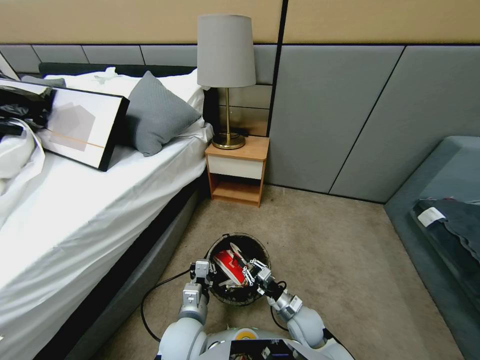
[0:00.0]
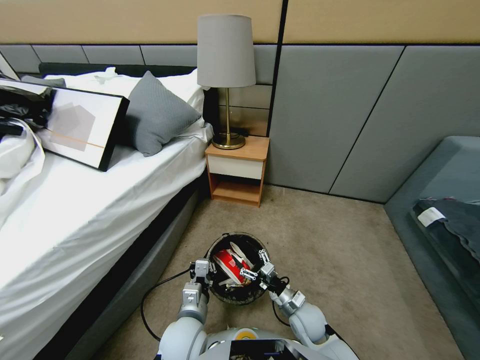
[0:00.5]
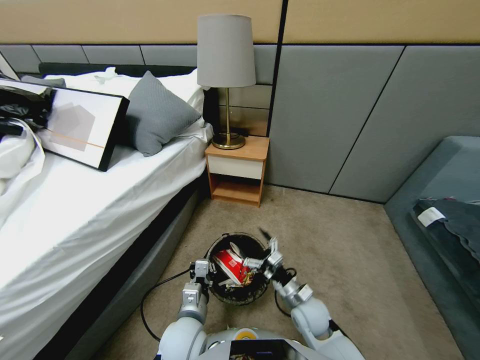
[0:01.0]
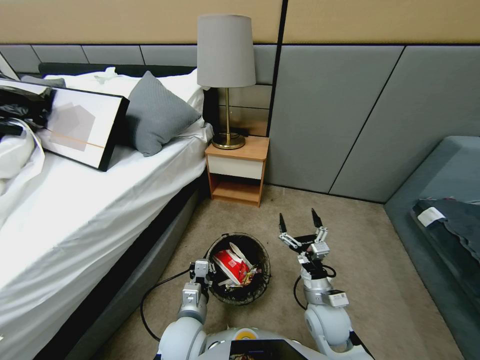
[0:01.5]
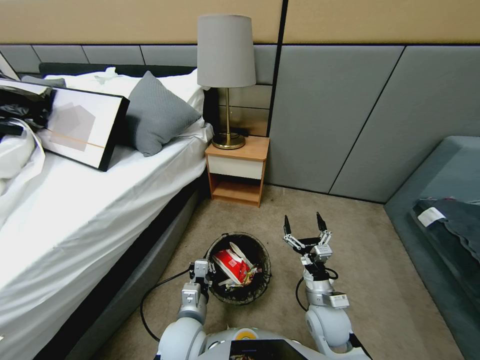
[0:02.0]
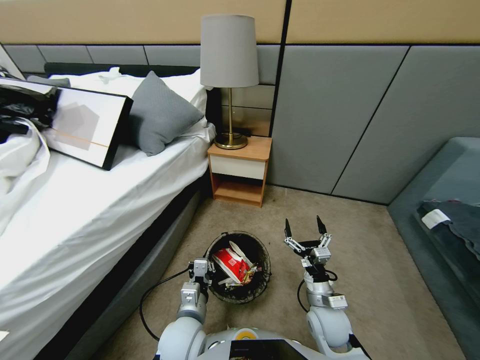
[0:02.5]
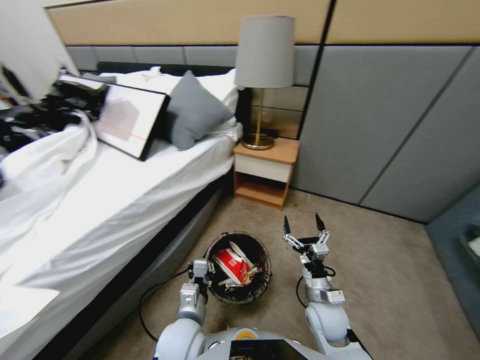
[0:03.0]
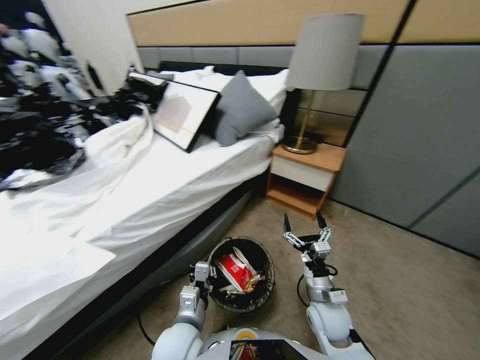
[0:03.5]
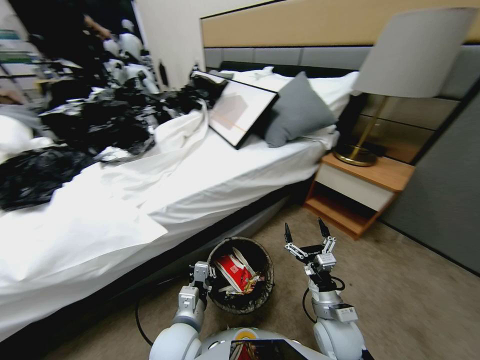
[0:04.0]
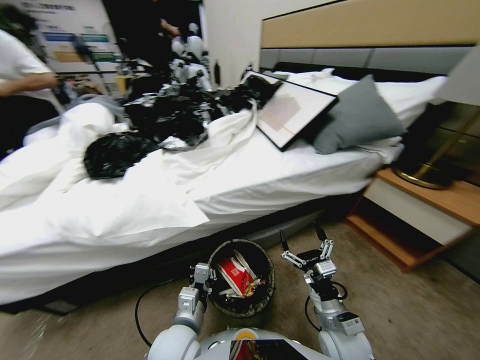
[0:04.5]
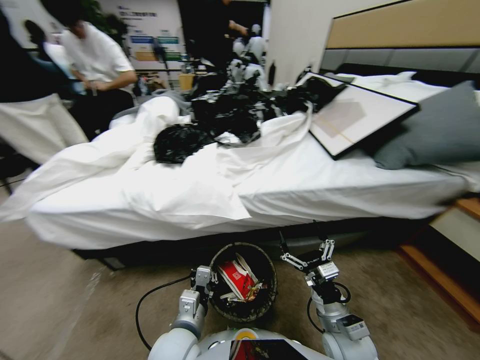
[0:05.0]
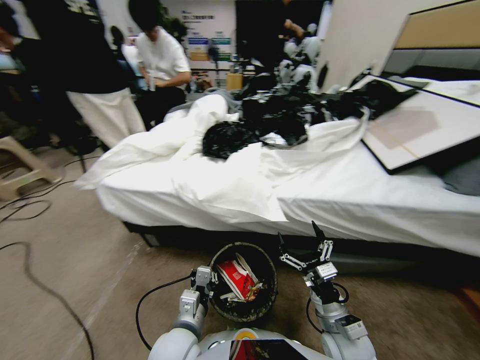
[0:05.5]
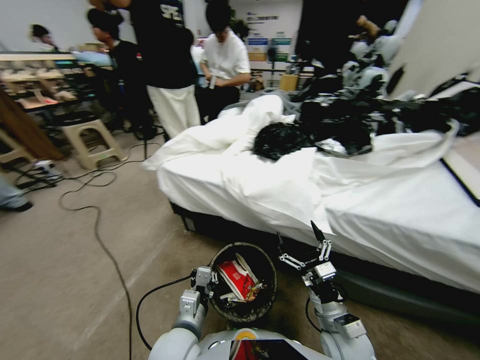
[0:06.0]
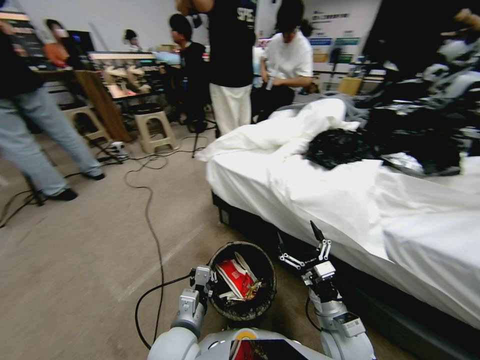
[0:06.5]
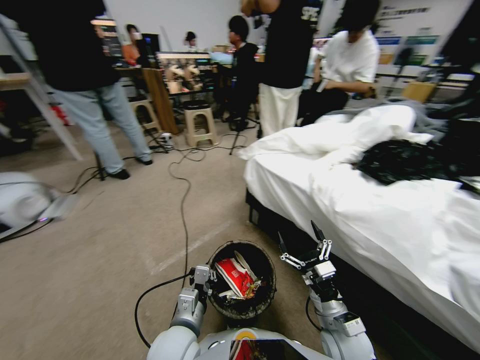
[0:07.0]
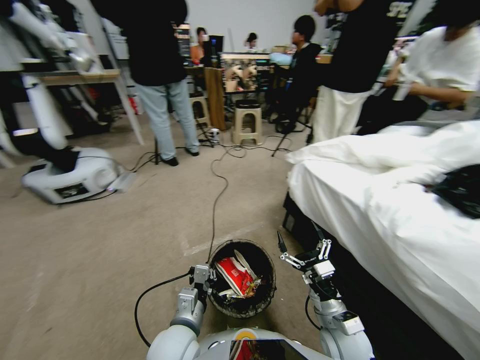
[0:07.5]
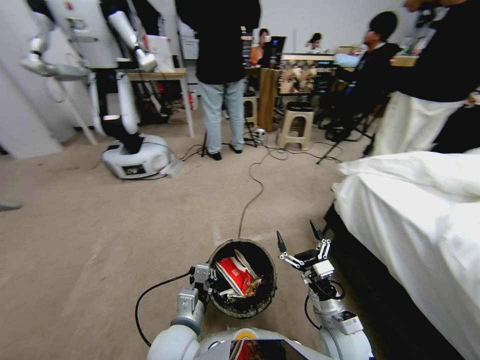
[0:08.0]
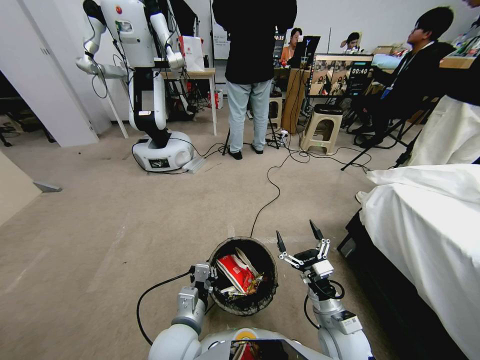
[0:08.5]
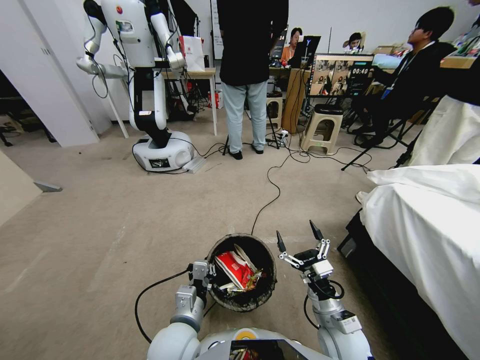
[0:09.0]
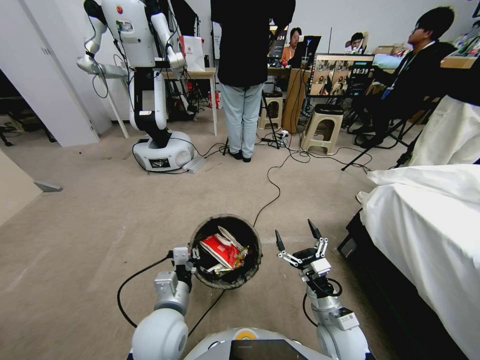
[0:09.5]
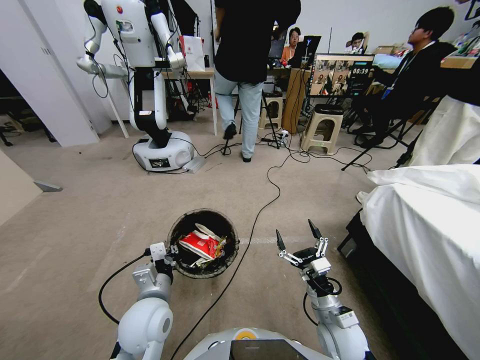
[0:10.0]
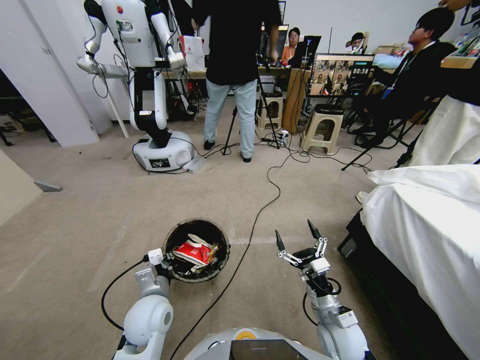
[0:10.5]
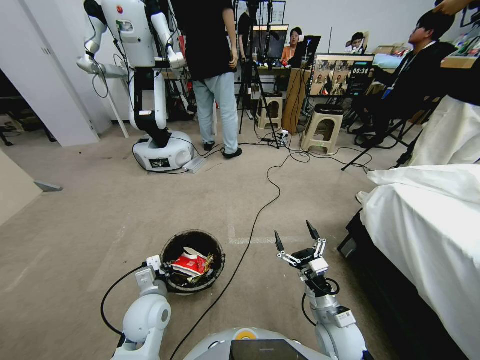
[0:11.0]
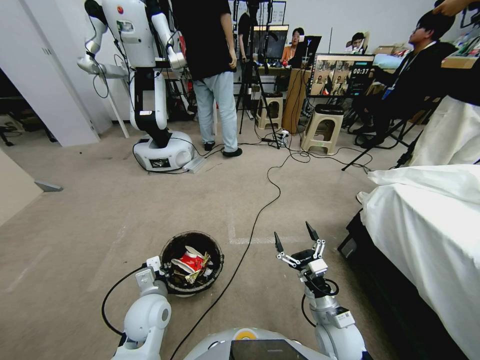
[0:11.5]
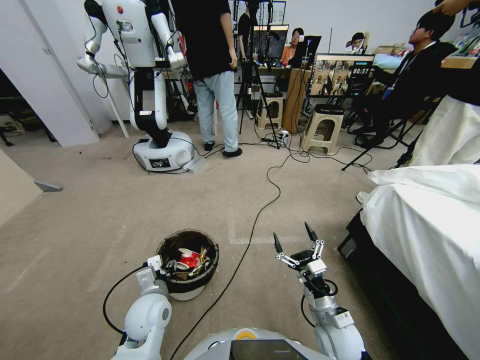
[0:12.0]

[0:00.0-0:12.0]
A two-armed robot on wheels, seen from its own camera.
Task of the whole recording: Pick up the trash bin, then pick up the garbage from the floor and place it into the trash bin.
0:00.0 to 0:02.0: The right gripper heads upward, covering approximately 10 cm, and opens its fingers.
0:08.0 to 0:10.0: The left gripper moves to the left and forward, approximately 10 cm.
0:10.0 to 0:12.0: The left gripper opens.

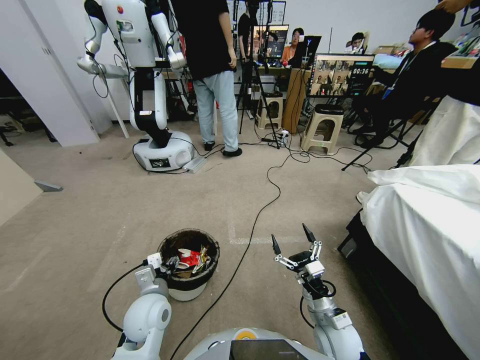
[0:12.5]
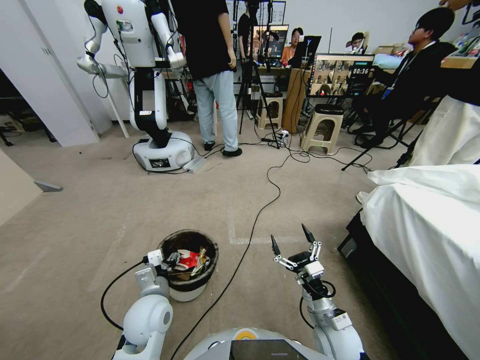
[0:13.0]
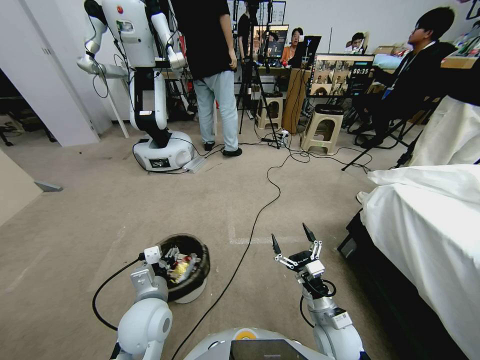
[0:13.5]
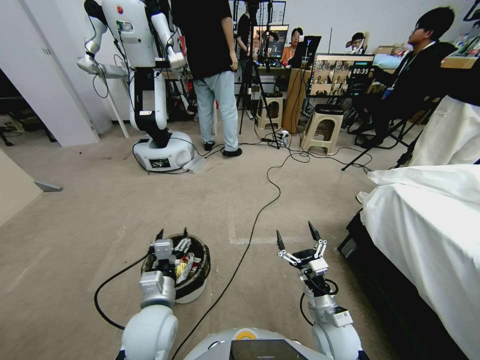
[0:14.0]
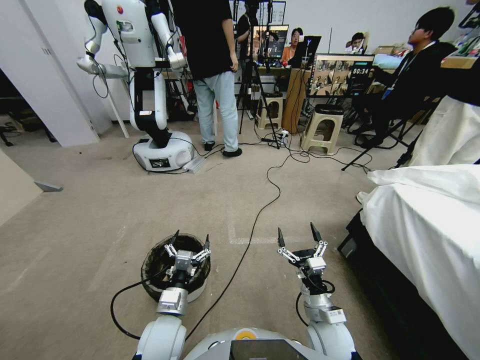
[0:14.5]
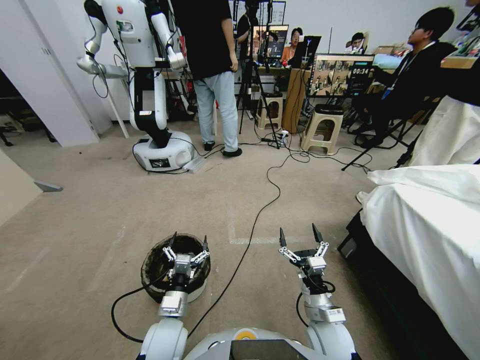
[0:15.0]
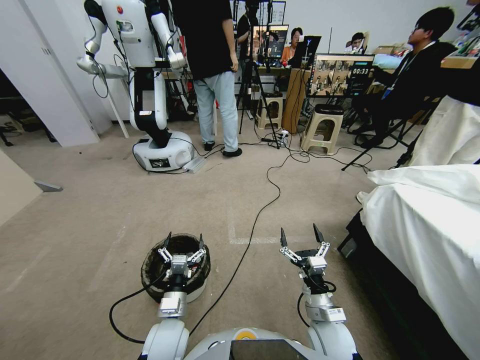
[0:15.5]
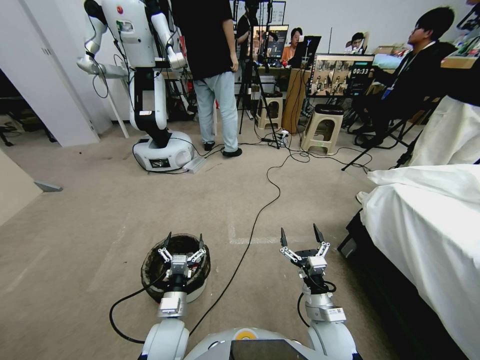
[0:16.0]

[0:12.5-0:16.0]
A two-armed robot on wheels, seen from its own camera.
Task of the whole recording: Pick up the trash bin, then pick up the garbage from the floor and place it into the trash bin.
0:12.5 to 0:14.5: The left gripper changes place by about 5 cm.
0:14.5 to 0:16.0: The grippers move only a little.
